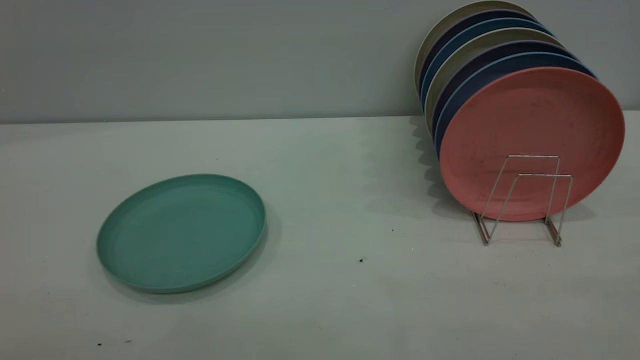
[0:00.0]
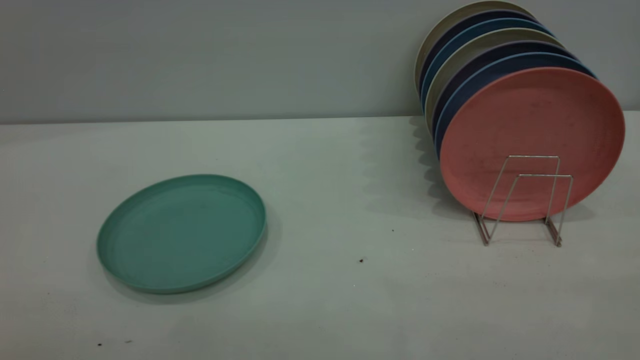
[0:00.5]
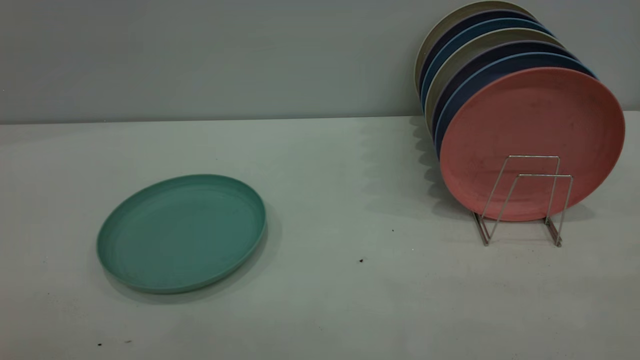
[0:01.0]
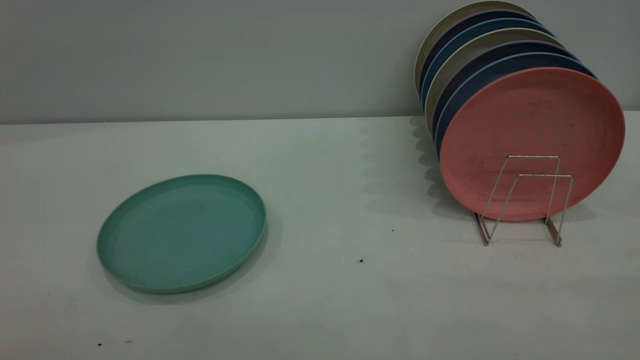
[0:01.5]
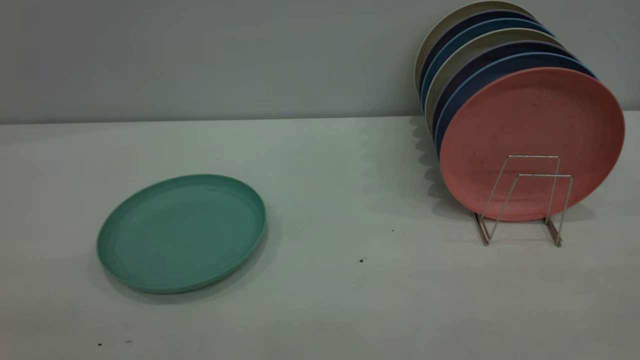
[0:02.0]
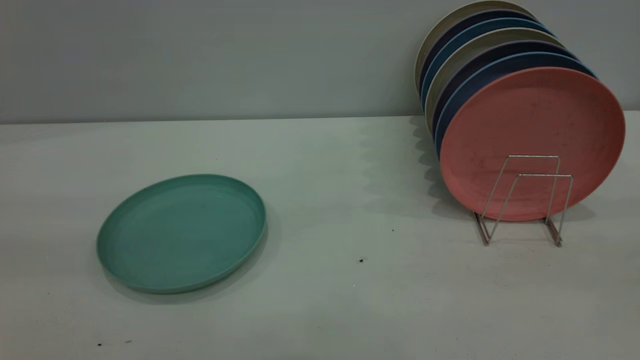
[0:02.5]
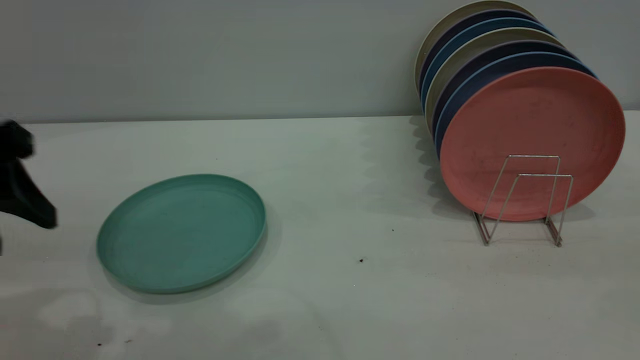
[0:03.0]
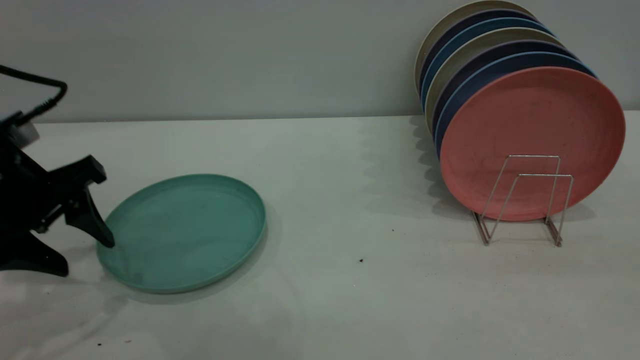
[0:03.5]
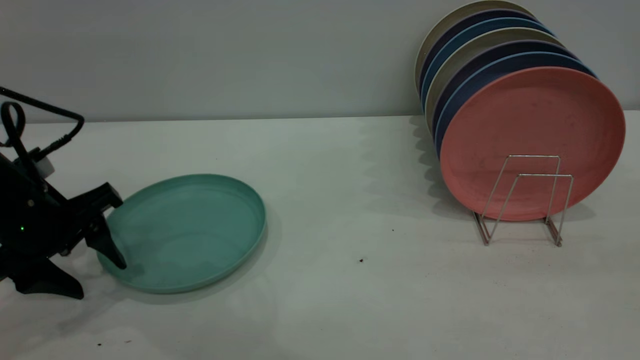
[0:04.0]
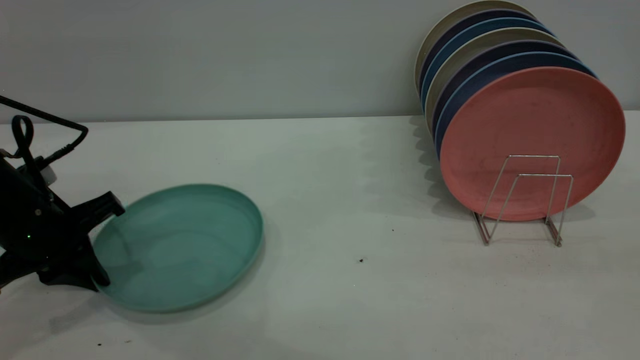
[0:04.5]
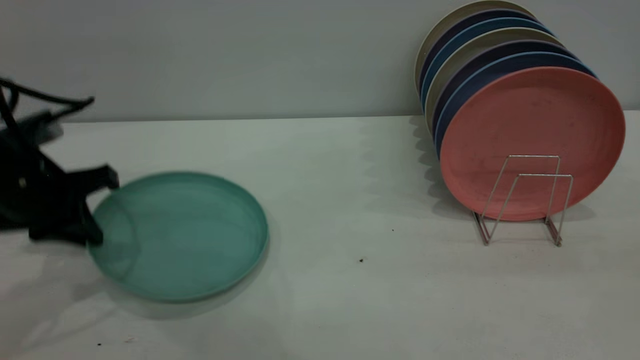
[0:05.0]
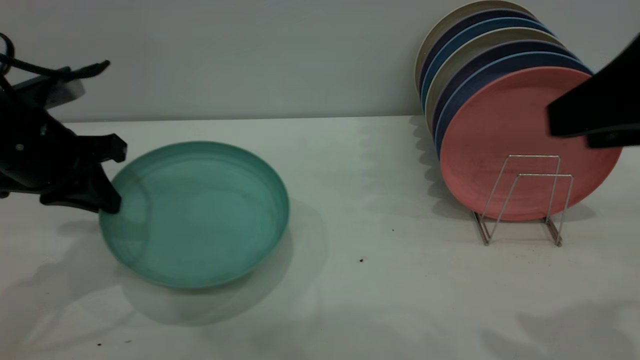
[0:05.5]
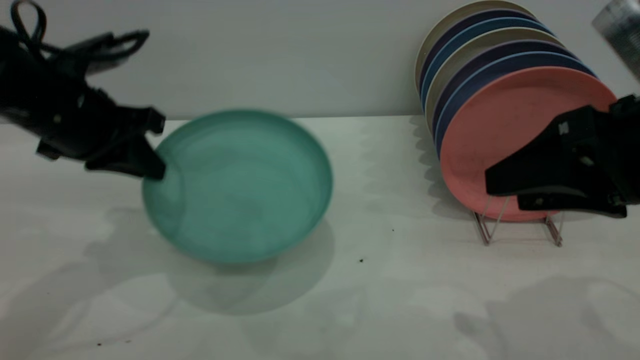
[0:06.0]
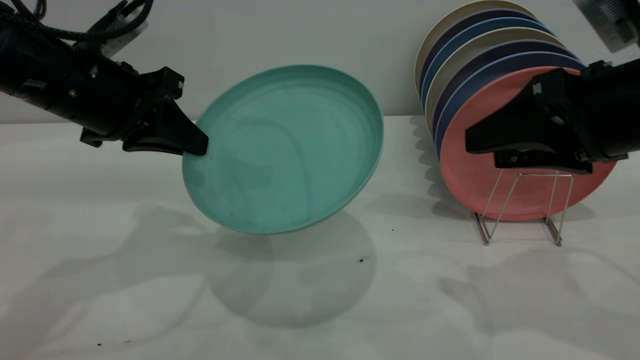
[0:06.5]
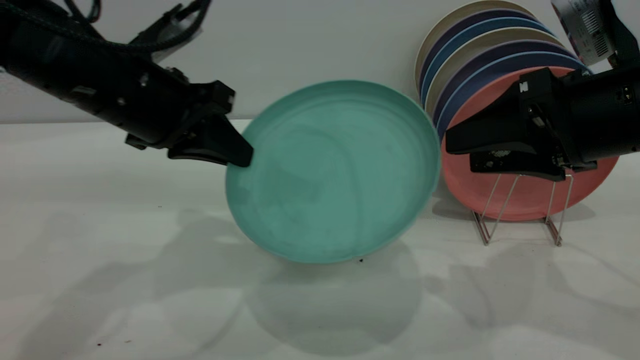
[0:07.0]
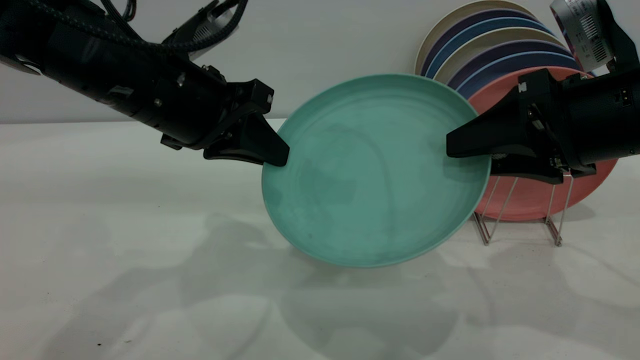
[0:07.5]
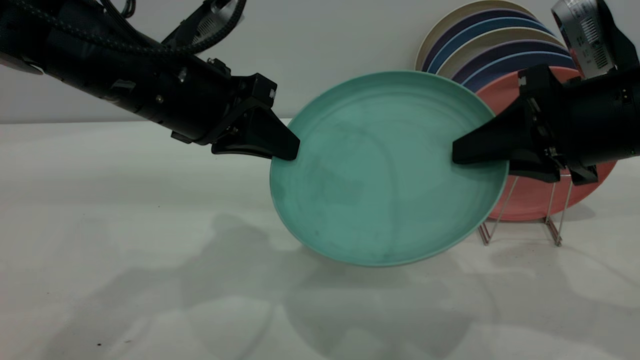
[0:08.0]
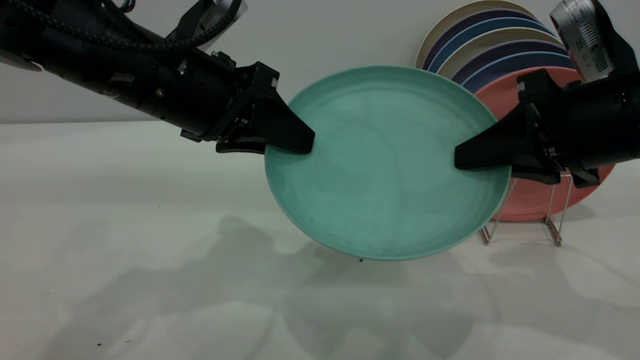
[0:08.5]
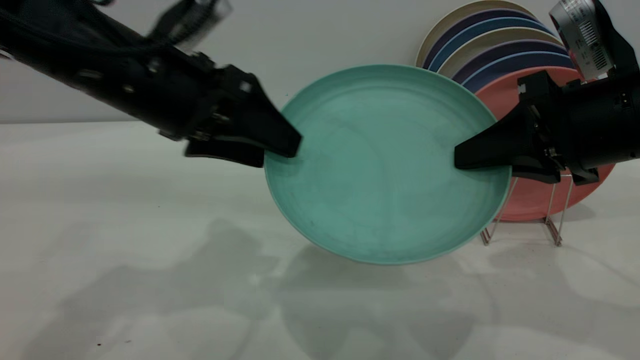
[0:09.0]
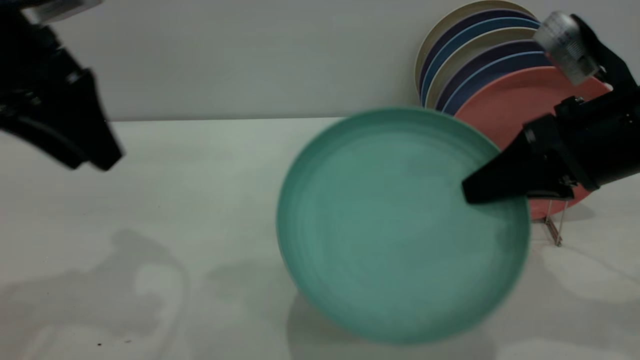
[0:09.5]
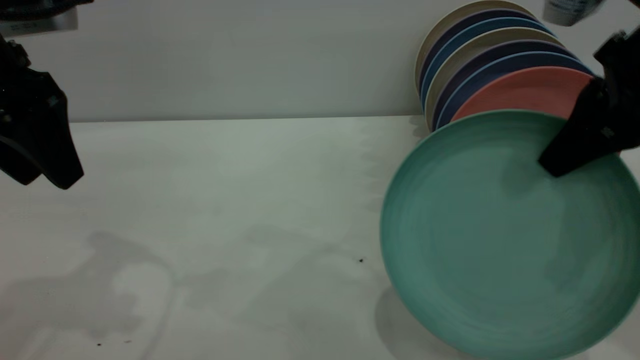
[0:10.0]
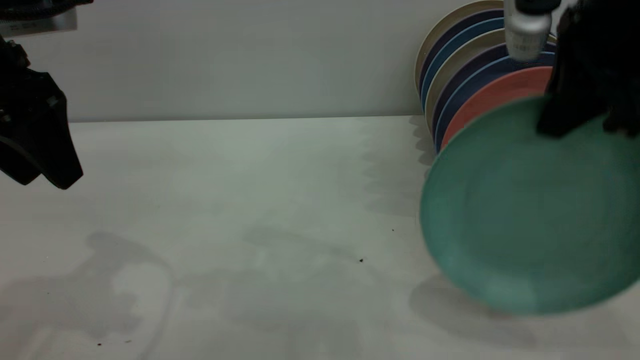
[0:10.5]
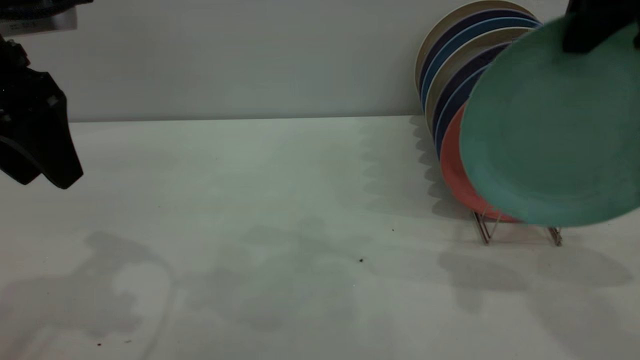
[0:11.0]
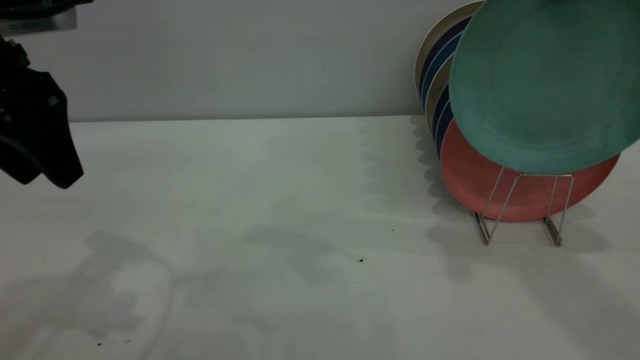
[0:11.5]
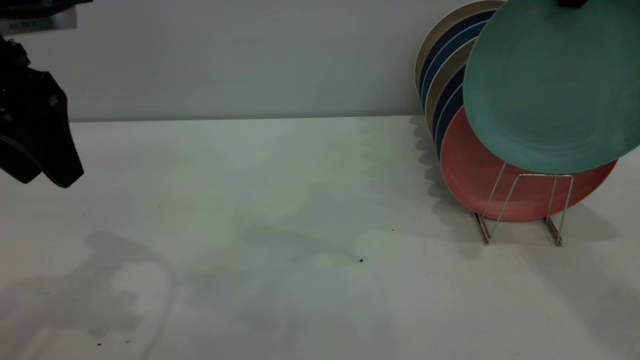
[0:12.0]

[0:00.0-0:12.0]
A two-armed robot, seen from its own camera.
Task of the whole recording: the left gripper grasp the green plate, the left gripper pass the green plate to the right gripper, and the right gripper place the green plate on the plate rack.
Step, 0:00.0 to 0:05.5: Pick up the plate with the left gripper.
Step, 0:06.0 to 0:09.0: Pass the plate from the left gripper to the right gripper.
0:02.0 to 0:04.0: The left gripper heads forward and downward, covering roughly 40 cm.
0:04.0 to 0:06.0: The right gripper goes approximately 20 cm downward and forward. Meanwhile the left gripper heads upward, covering some 10 cm, and closes up.
0:06.0 to 0:08.0: The left gripper is displaced to the right by roughly 10 cm; the right gripper changes place by about 5 cm, and closes its fingers.
0:08.0 to 0:10.0: The right gripper travels upward by roughly 5 cm. The left gripper heads to the left and upward, covering some 15 cm, and opens up.
0:10.0 to 0:12.0: The right gripper heads forward and upward, covering some 15 cm.

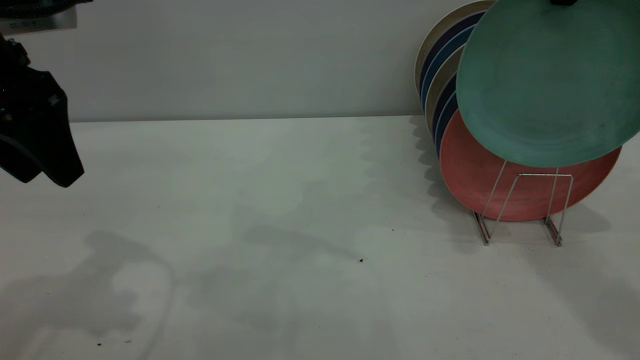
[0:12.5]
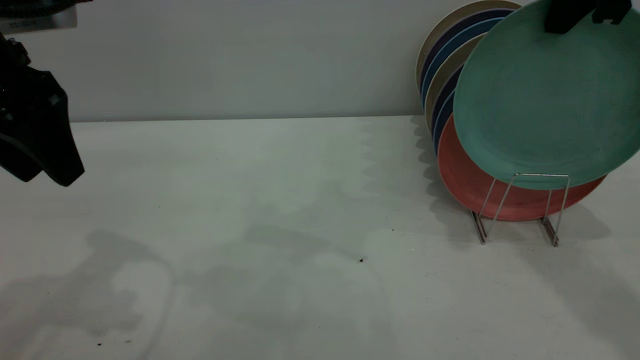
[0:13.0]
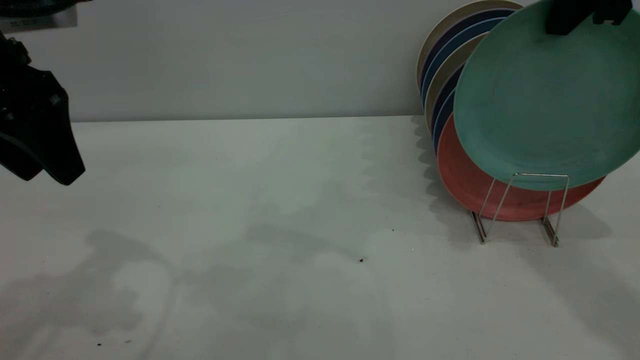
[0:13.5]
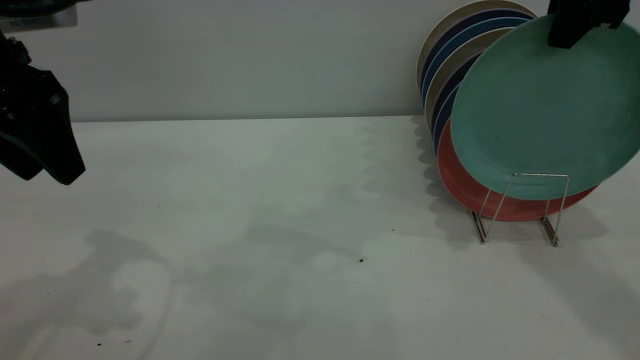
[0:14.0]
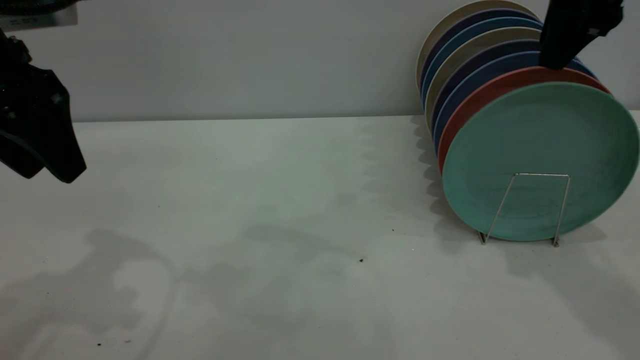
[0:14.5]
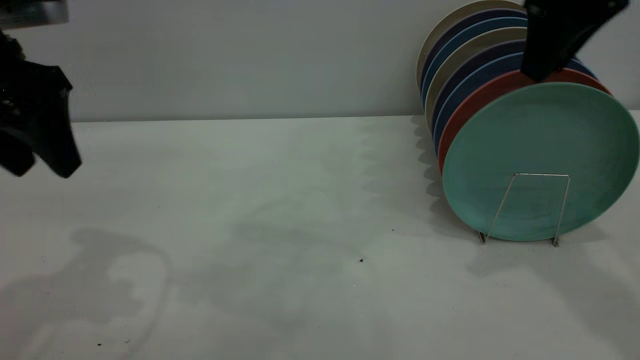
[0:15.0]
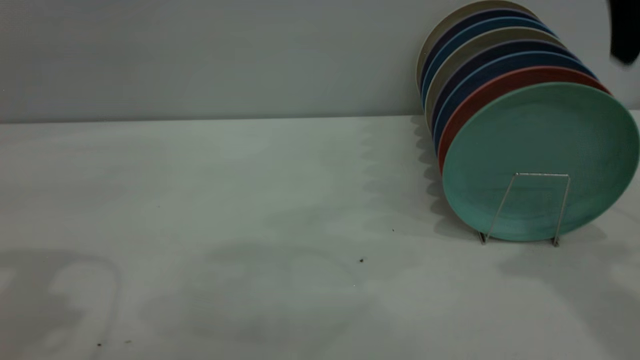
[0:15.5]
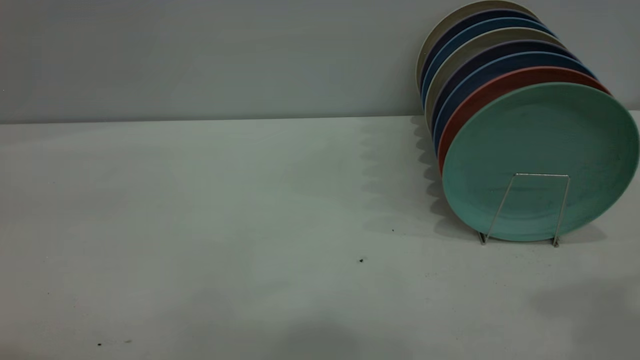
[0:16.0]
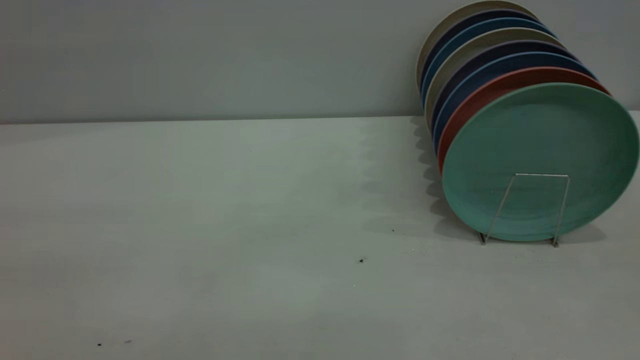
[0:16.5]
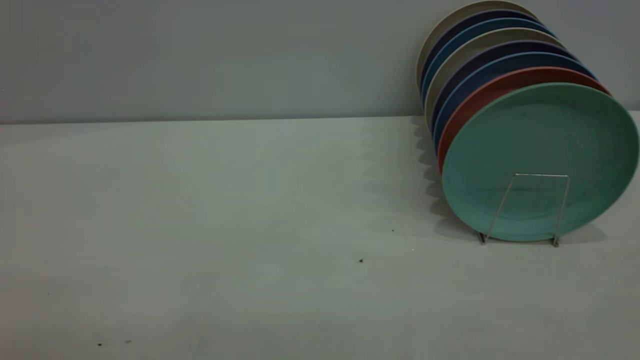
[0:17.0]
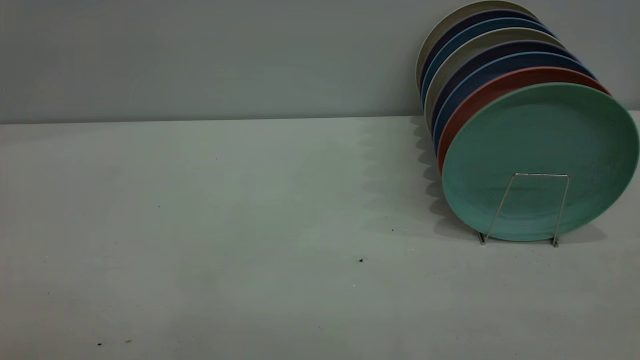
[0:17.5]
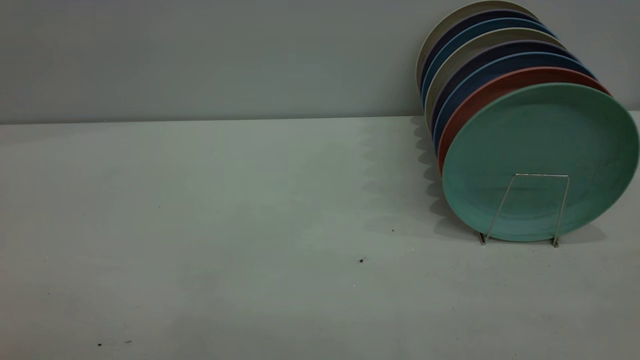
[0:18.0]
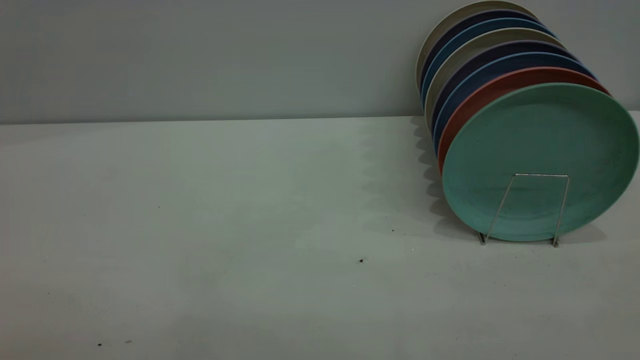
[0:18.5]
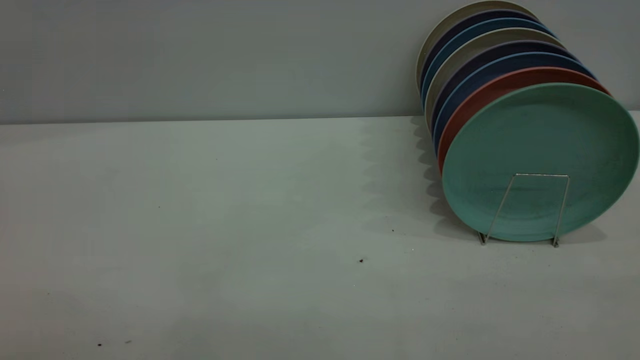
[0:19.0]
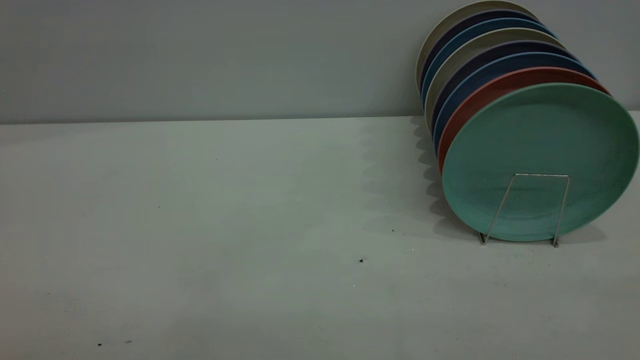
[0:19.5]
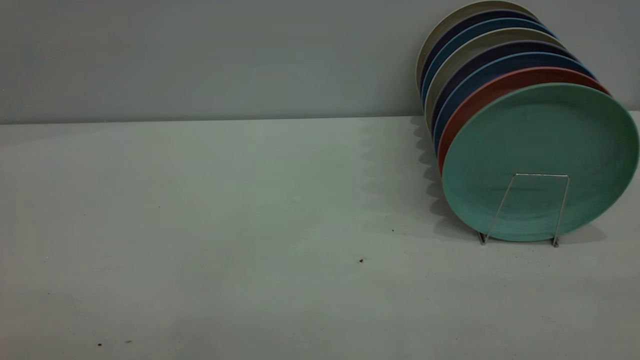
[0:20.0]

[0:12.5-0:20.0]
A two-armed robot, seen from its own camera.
Task of the whole recording: the left gripper grasp the green plate, the left gripper pass the green plate to the right gripper, and the right gripper place the green plate on the plate rack.
Step, 0:12.5 to 0:15.0: Place the plate on the shelf.
0:12.5 to 0:14.5: The right gripper opens.
0:14.5 to 0:16.5: The left gripper moves backward and upward, approximately 30 cm. The right gripper shifts approximately 30 cm backward.
